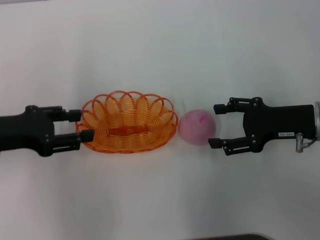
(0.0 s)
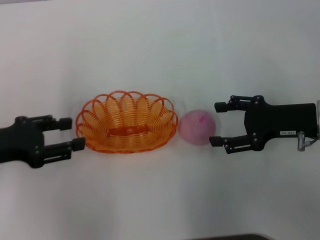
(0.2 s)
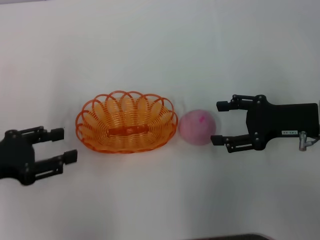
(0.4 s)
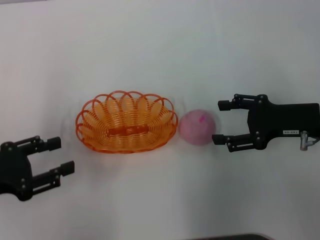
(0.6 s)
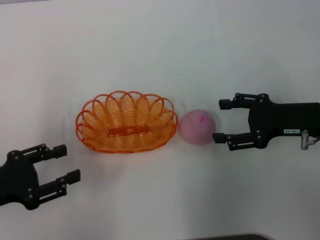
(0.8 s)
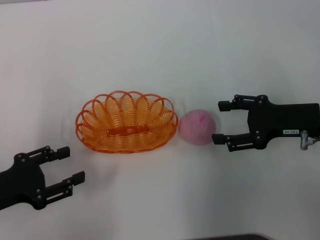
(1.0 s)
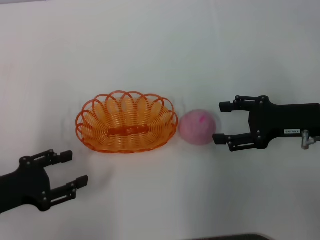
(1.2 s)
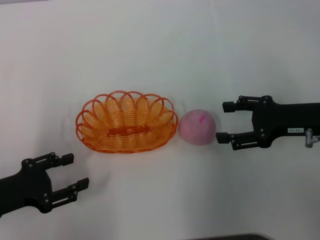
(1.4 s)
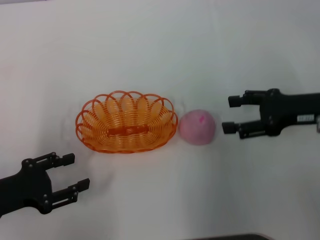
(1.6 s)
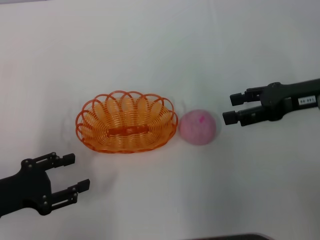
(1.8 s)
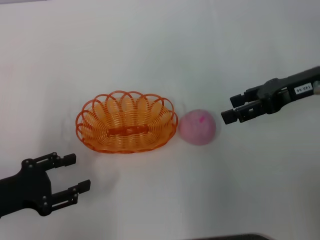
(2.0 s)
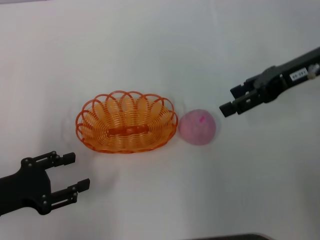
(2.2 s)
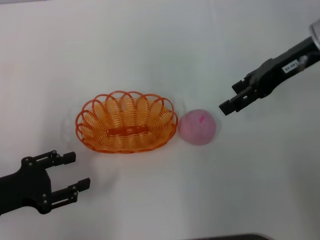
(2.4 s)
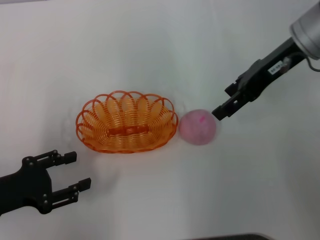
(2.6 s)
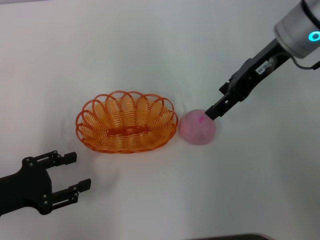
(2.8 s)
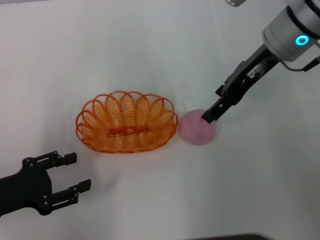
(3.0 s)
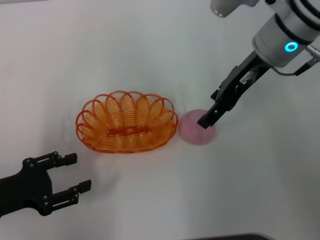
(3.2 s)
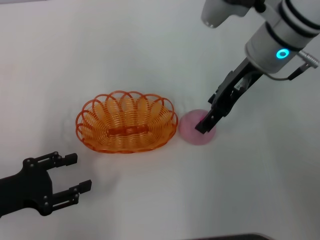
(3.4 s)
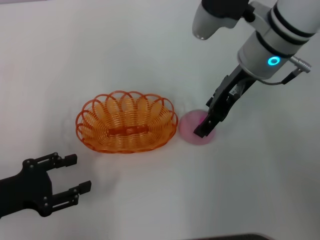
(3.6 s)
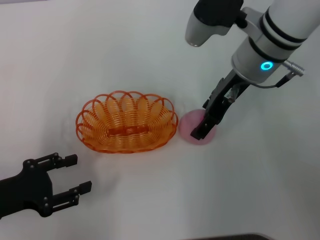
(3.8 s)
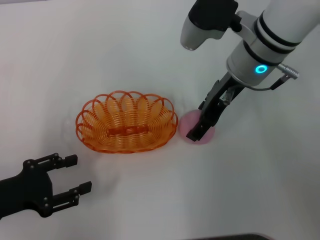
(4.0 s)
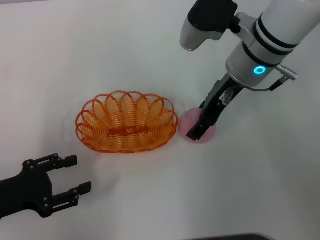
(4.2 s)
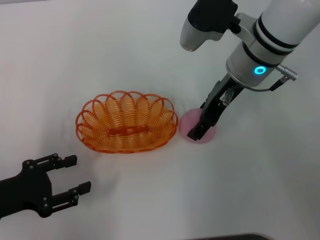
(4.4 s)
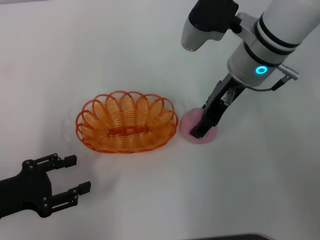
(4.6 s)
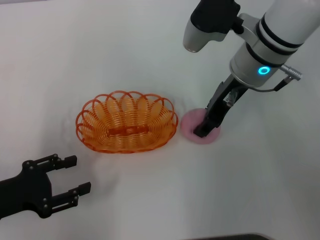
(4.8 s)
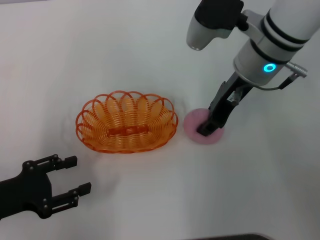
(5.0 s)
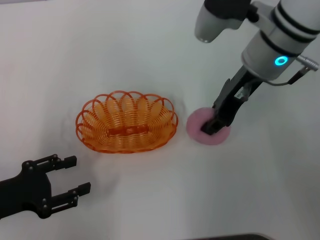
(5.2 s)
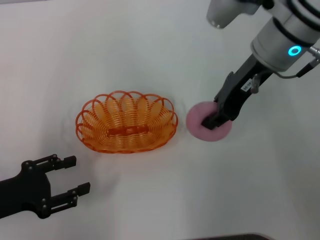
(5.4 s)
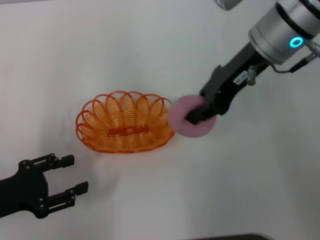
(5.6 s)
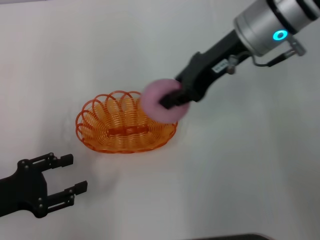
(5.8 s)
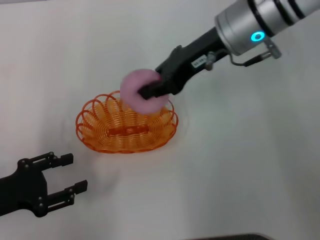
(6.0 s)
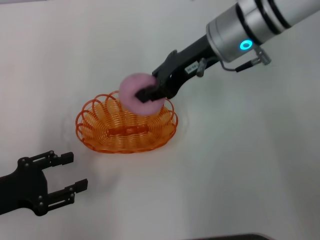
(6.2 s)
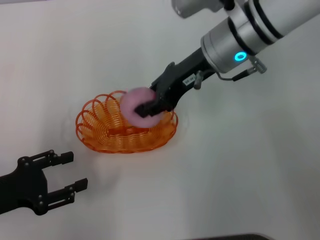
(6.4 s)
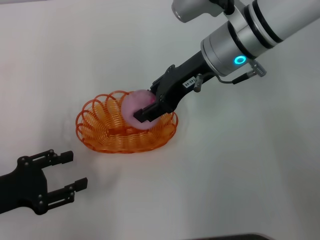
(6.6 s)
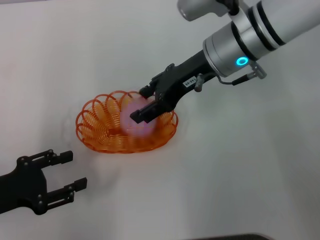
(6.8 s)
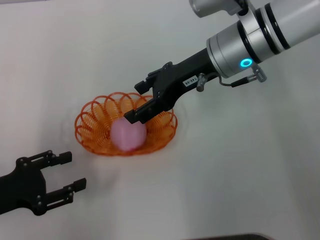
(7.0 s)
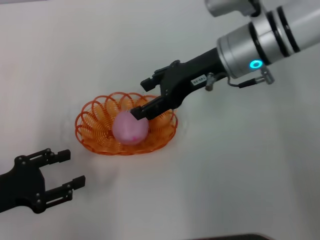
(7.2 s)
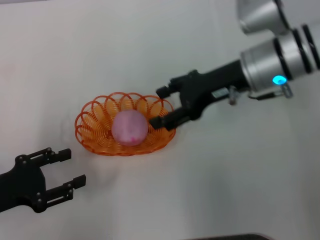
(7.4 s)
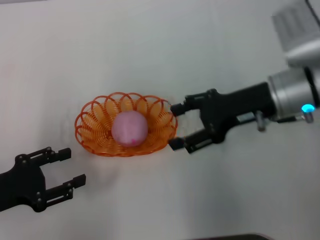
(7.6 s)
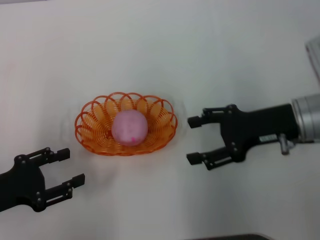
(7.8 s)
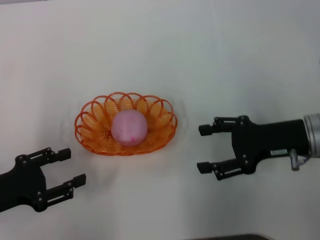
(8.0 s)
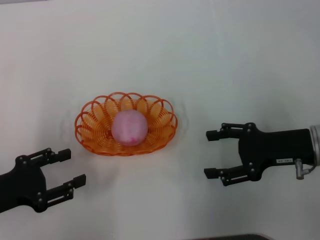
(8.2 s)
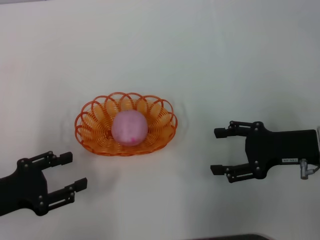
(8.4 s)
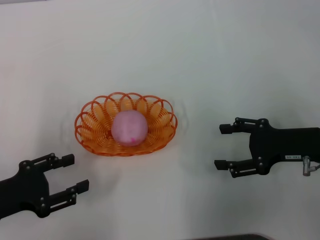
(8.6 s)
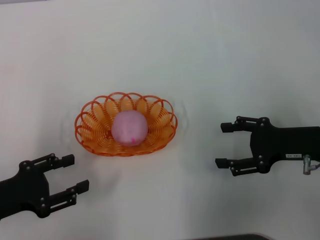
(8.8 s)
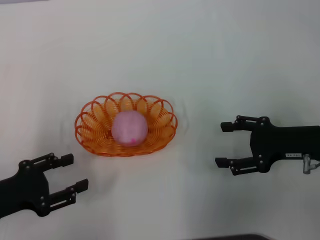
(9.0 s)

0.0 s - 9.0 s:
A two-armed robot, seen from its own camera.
Step, 0.6 s - 5.4 s: Pick up the peach with the right gripper.
Step, 5.6 s - 7.4 s: Place the peach into the basket with the right gripper.
0.0 s - 1.6 s: The left gripper shifts about 10 cm downward and backward.
1.6 s - 3.0 s: The right gripper travels to the left, forward and upward by roughly 15 cm.
3.0 s - 4.4 s: The right gripper ends up some 5 cm from where it was.
4.4 s - 6.0 s: The right gripper closes its fingers.
6.0 s - 7.6 s: The right gripper heads downward, to the right and backward, covering approximately 10 cm, and opens its fingers.
7.6 s - 9.0 s: The right gripper moves to the right, backward and downward, about 10 cm.
